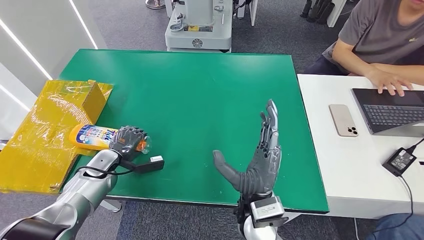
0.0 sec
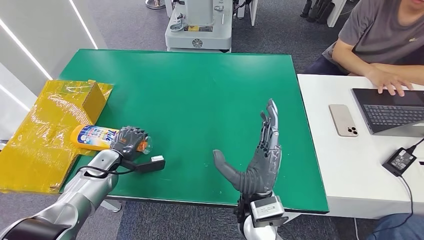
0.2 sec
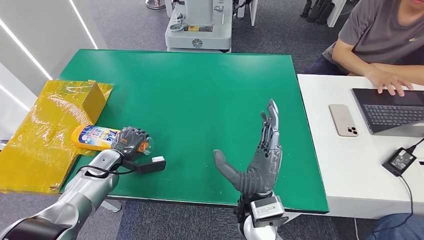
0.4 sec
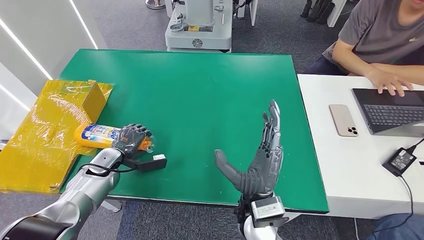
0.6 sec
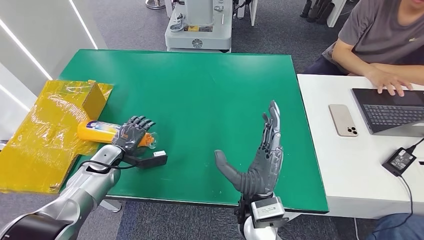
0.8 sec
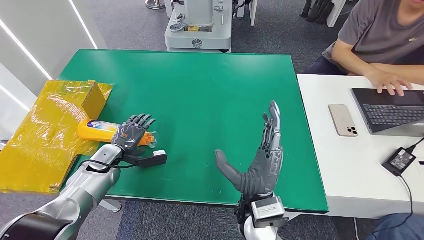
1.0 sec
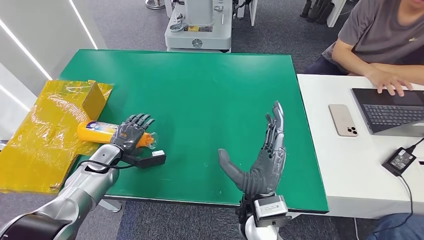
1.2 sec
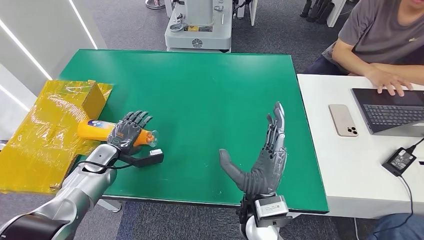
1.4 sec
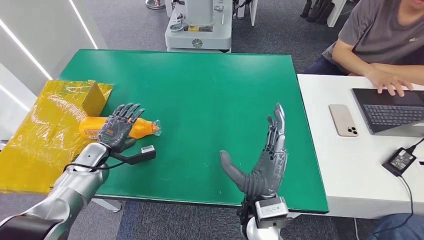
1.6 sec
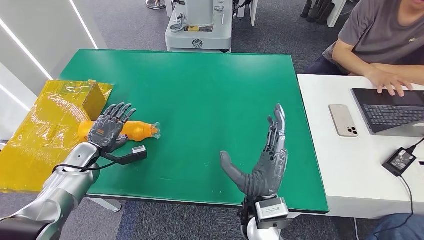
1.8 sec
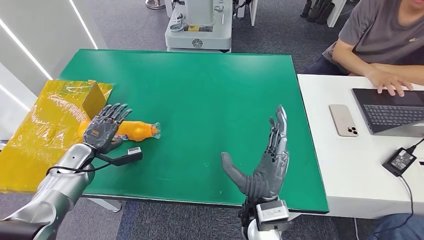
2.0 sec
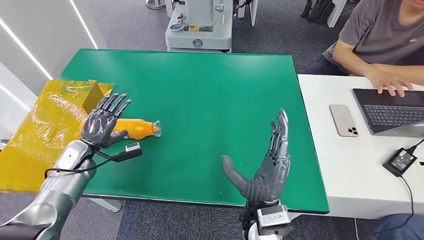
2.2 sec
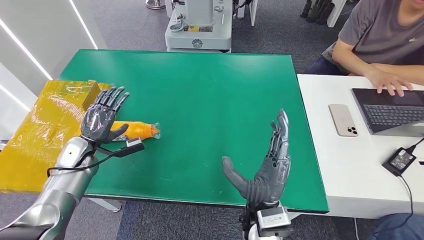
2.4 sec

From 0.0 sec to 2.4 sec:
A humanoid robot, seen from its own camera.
Step, from 0.0 sec to 2.4 sec: Turn the bottle to the front side.
From 0.0 sec to 1.2 sec: The hands move only a little.
From 1.2 sec to 2.4 sec: The left hand shifts by about 5 cm.
